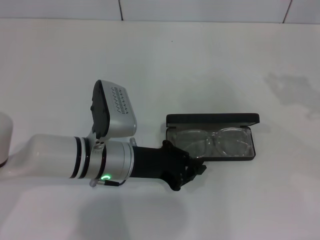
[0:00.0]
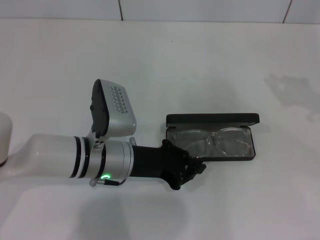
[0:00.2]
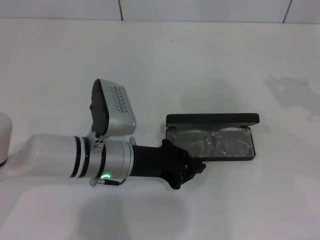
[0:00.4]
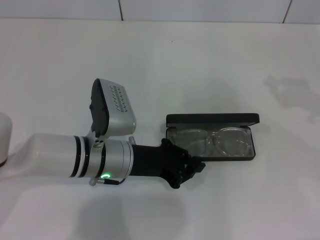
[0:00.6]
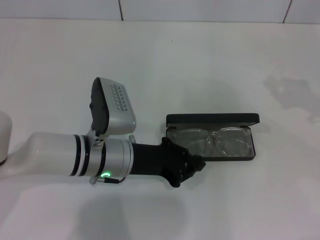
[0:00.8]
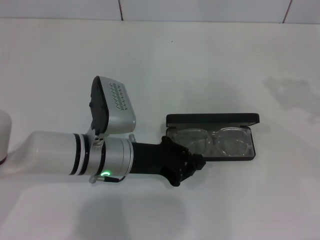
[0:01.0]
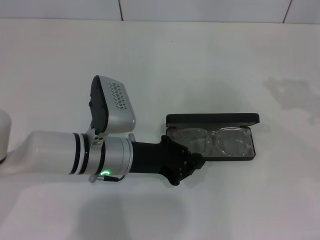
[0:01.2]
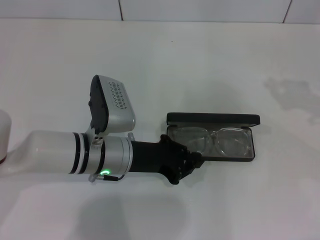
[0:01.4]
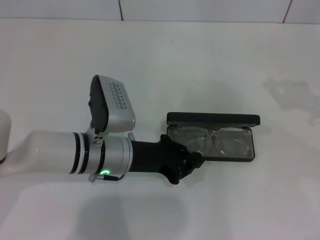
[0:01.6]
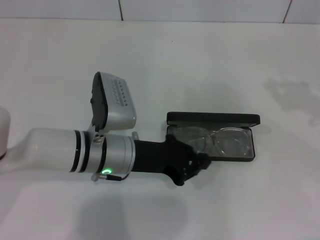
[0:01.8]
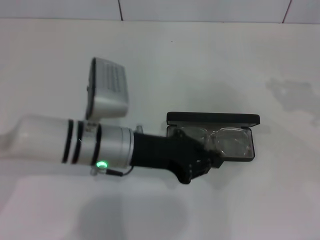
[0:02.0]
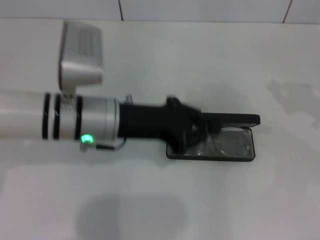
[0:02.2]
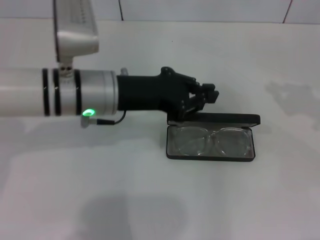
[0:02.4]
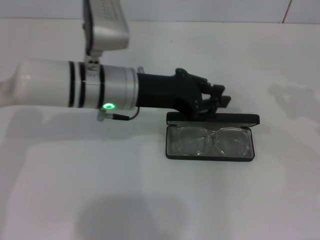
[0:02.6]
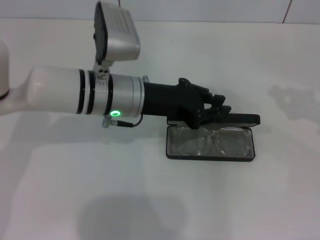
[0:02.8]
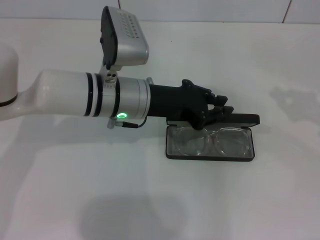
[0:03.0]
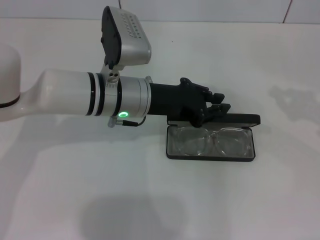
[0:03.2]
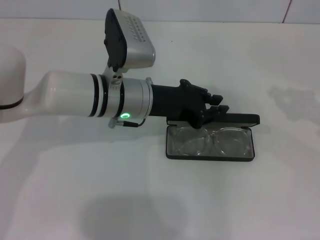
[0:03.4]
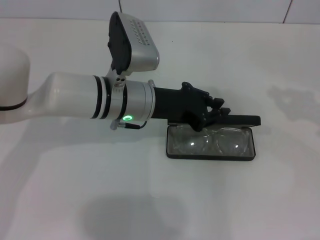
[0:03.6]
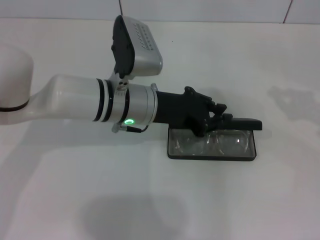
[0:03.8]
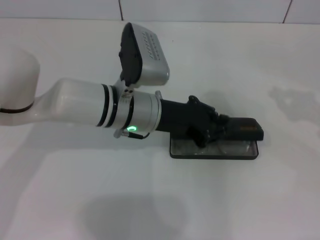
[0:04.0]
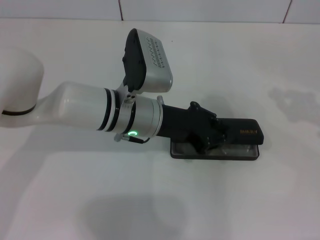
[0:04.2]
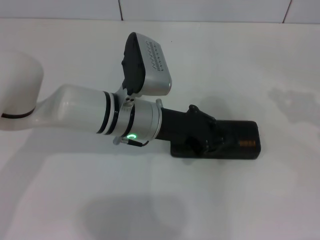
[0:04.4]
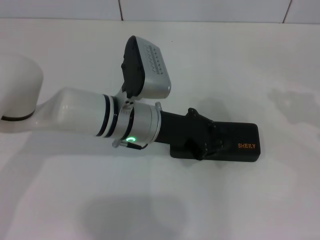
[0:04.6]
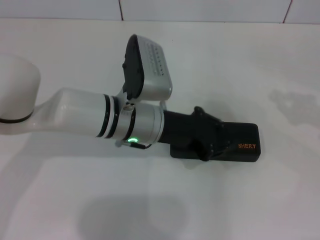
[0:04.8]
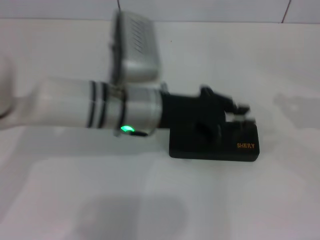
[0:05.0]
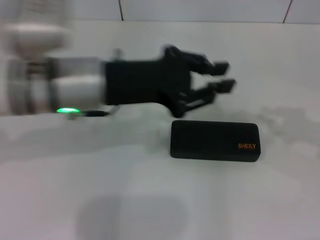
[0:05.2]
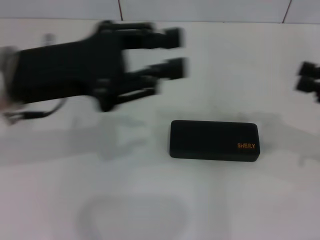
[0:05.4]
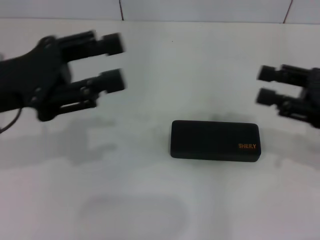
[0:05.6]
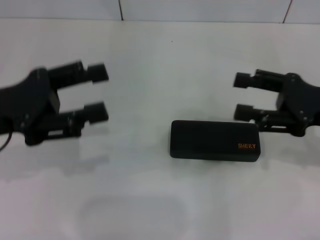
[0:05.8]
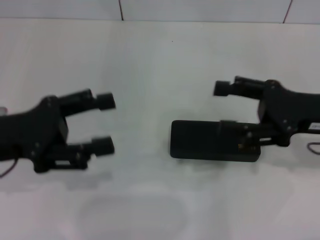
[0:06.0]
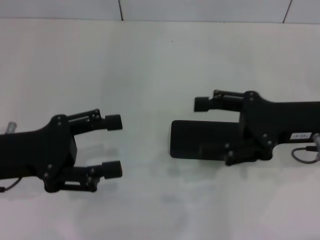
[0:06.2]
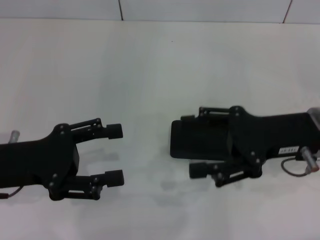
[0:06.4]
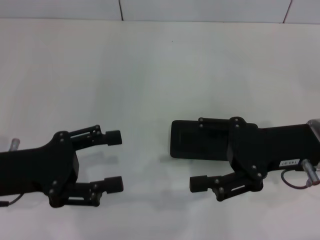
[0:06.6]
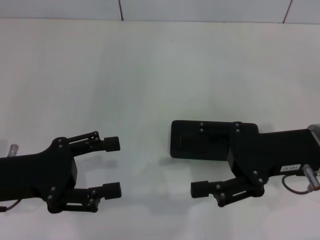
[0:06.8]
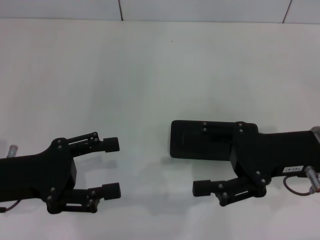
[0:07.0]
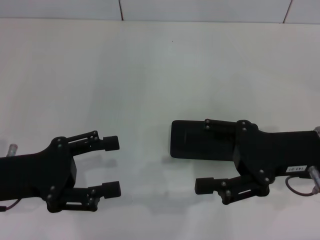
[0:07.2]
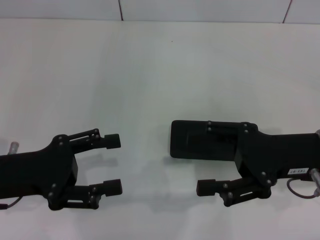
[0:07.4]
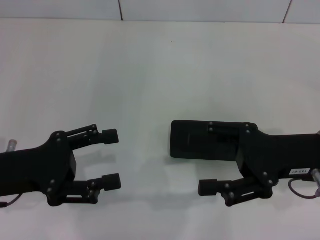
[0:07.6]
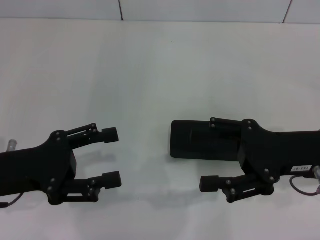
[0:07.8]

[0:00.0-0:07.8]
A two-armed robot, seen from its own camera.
Step, 0:00.0 to 0:04.6: Close the glasses case with your left hand.
0:00.0 to 0:01.6: Both grippers stay put.
0:01.6 to 0:03.2: The left gripper heads upward and forward, covering roughly 10 cm.
0:03.2 to 0:04.6: The grippers make only small movements.
0:04.6 to 0:06.2: The left gripper travels to the left and backward by about 20 cm, and opens up; the right gripper travels to the left by roughly 15 cm, and opens.
0:06.2 to 0:07.8: There are only small adjustments of the grippers.
